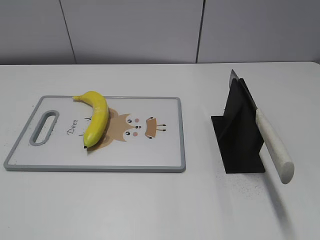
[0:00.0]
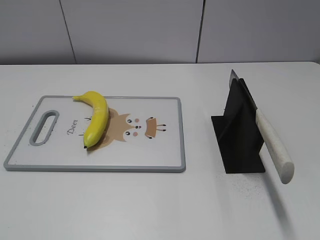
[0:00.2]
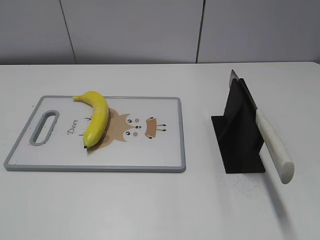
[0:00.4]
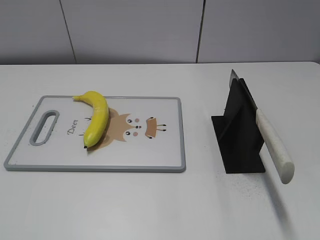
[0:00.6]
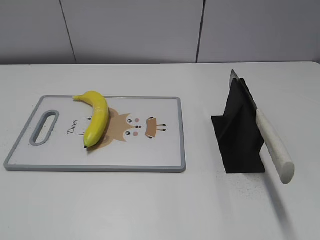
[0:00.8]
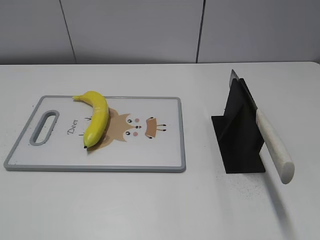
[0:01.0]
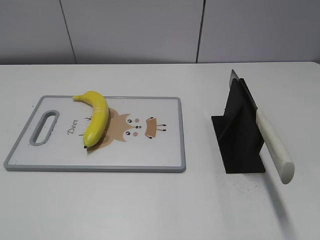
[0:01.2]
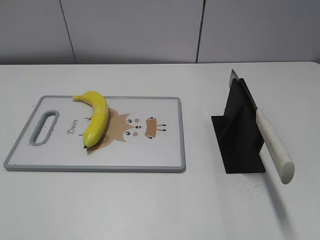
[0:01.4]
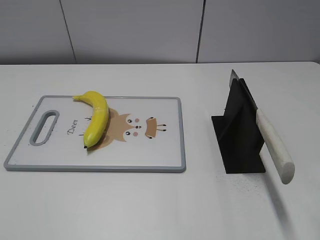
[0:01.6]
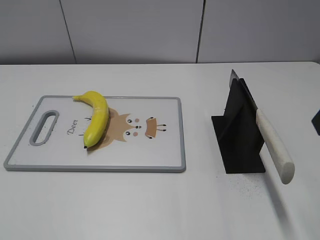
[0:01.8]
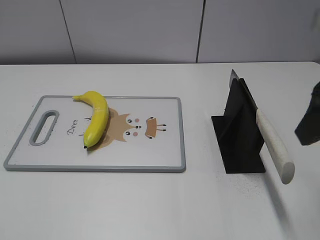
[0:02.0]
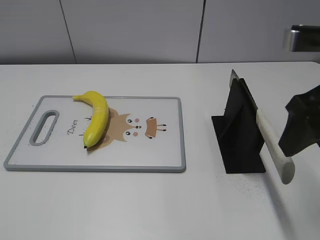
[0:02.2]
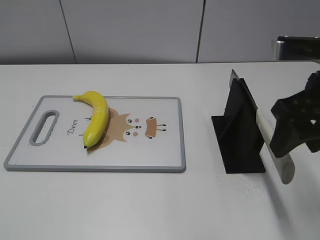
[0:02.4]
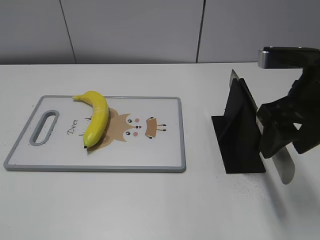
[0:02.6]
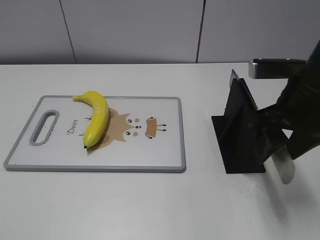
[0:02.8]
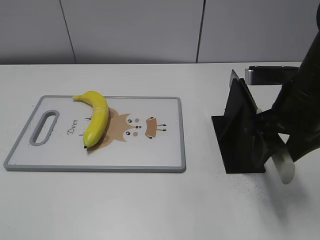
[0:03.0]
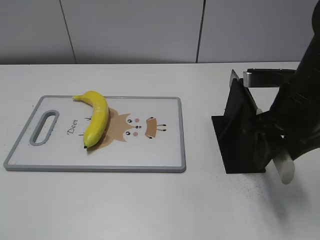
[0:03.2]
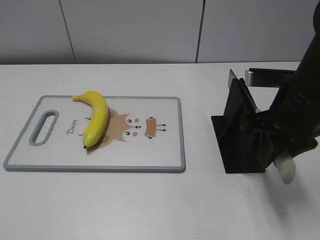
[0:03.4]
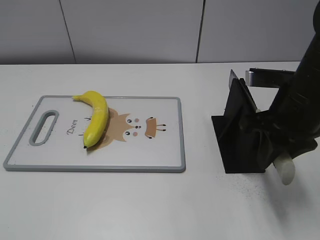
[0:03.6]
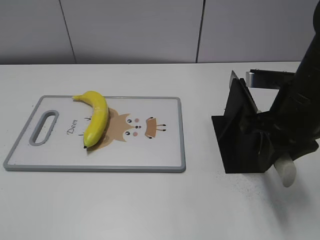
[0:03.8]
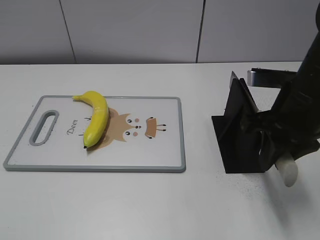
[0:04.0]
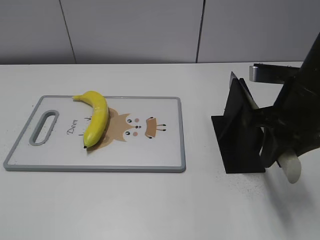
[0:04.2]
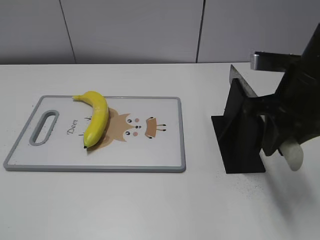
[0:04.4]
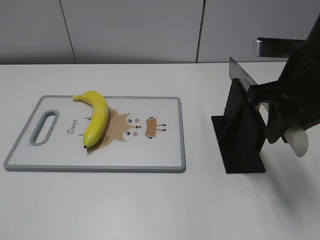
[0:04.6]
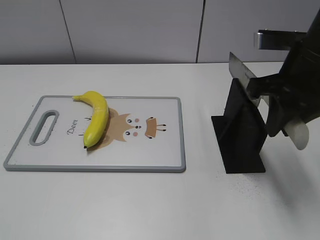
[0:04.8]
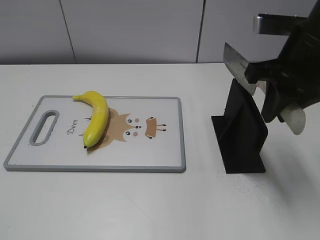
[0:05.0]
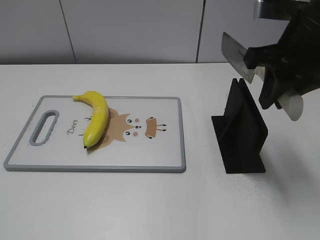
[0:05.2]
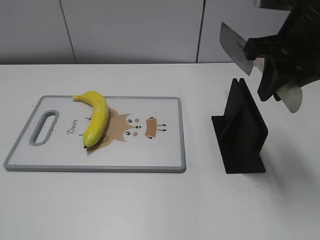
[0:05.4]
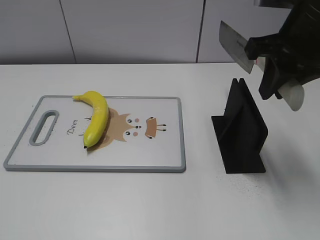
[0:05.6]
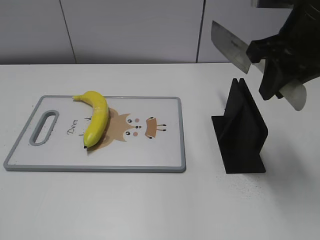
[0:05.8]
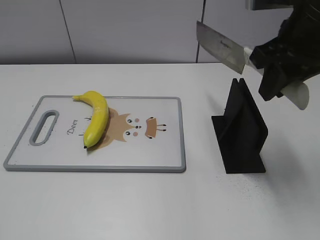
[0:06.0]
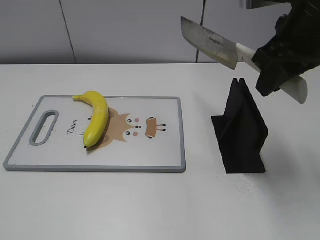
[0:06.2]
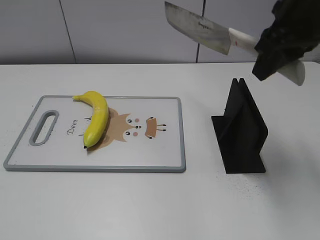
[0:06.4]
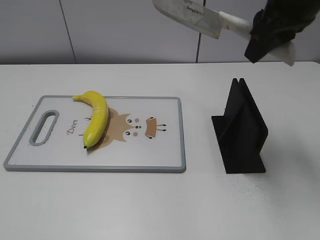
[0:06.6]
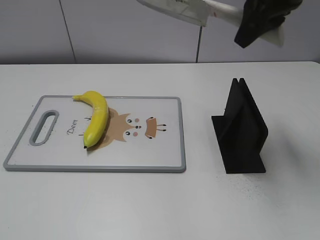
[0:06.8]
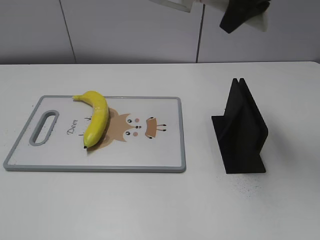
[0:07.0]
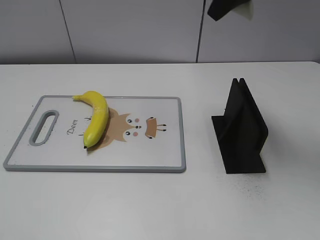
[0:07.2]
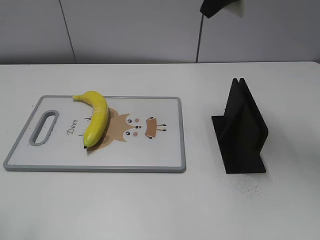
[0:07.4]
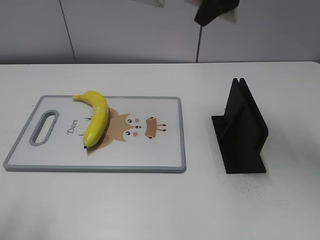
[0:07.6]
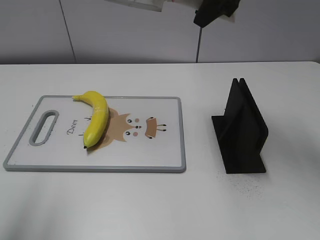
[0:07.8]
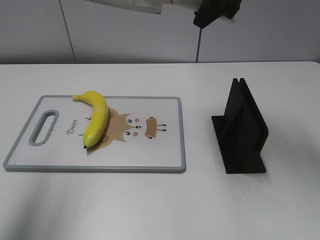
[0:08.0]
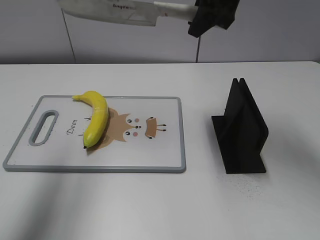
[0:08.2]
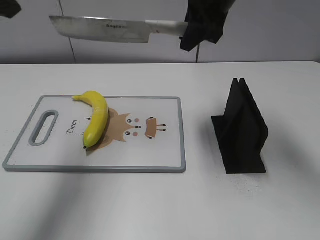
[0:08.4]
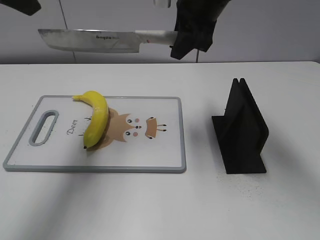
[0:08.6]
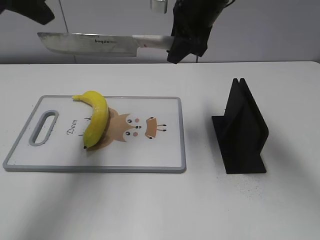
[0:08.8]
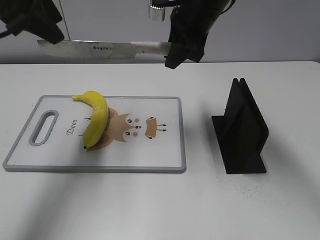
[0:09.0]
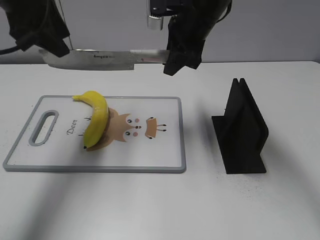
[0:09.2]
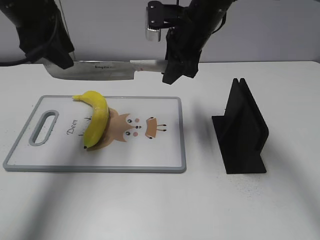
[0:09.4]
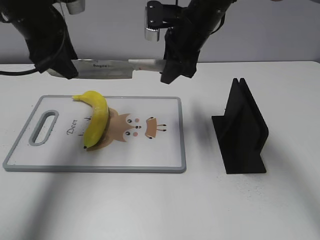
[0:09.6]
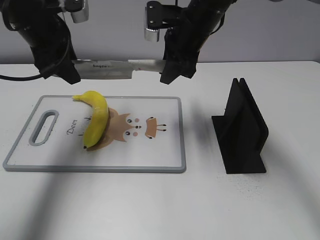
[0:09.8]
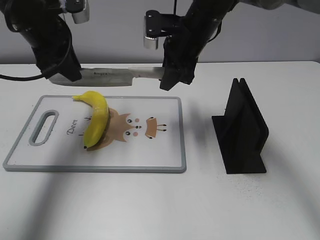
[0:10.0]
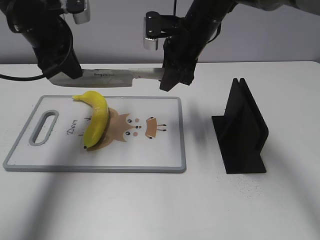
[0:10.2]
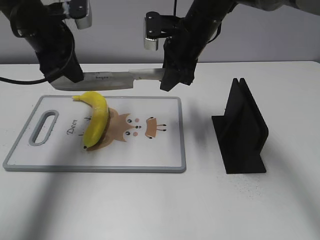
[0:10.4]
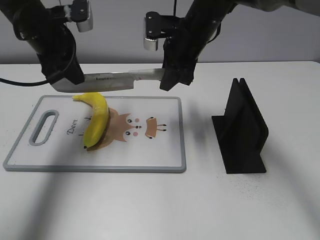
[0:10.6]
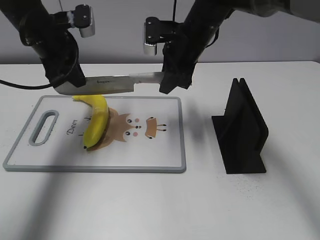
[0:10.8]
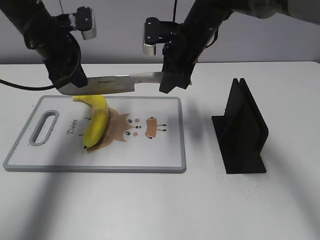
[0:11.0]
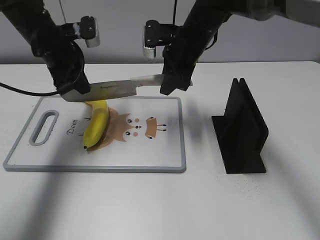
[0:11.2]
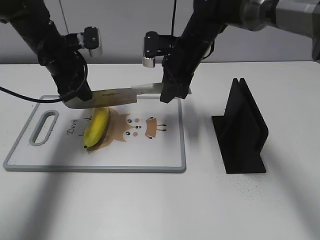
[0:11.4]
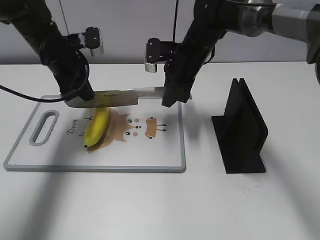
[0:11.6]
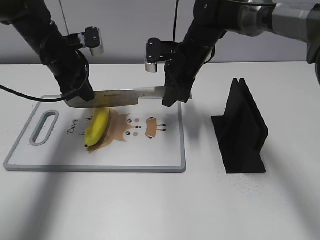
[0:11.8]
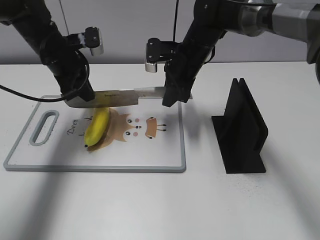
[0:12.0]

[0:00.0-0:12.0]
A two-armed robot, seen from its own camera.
Task of the whole recording: cut plastic banana.
Step, 0:00.0 to 0:05.6: Grab the knife handle with your right hand.
0:01.6 to 0:03.0: The right gripper moves downward, forward and to the left, about 15 cm.
0:03.0 to 0:04.4: The right gripper closes.
0:04.4 to 0:06.0: The right gripper shifts approximately 5 cm upward.
0:06.0 to 0:07.6: The left gripper travels forward and upward by approximately 15 cm, while the right gripper moves forward and to the left, about 10 cm.
0:07.6 to 0:09.0: The left gripper travels forward by approximately 25 cm; the right gripper is displaced downward and to the left by about 10 cm.
0:09.0 to 0:10.4: The right gripper shifts about 5 cm downward. Meanwhile the left gripper travels downward and forward by approximately 10 cm, and closes up.
0:10.4 to 0:12.0: Both grippers travel together downward, about 5 cm.

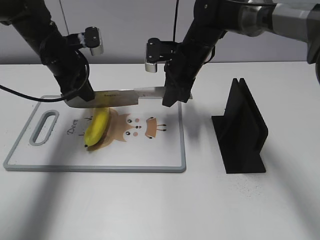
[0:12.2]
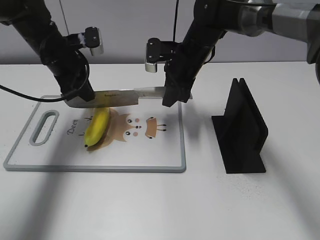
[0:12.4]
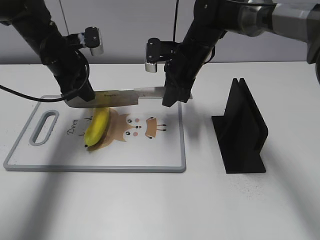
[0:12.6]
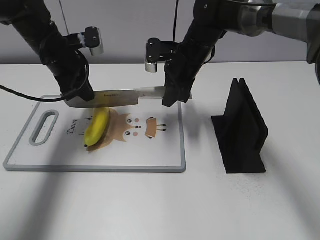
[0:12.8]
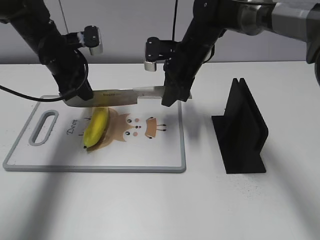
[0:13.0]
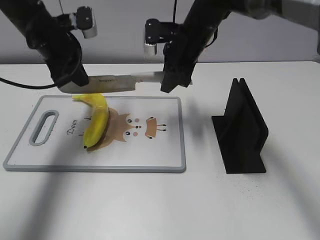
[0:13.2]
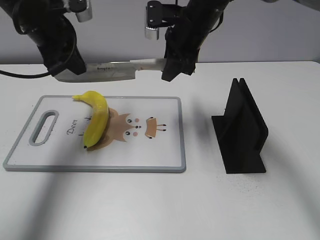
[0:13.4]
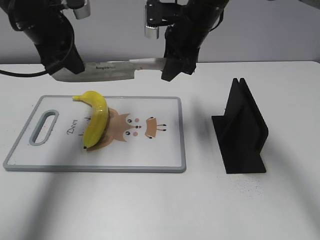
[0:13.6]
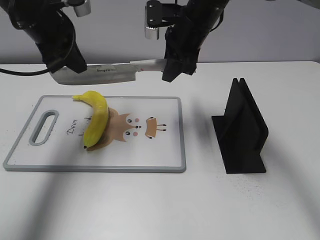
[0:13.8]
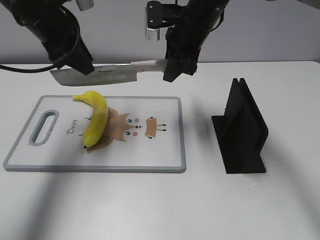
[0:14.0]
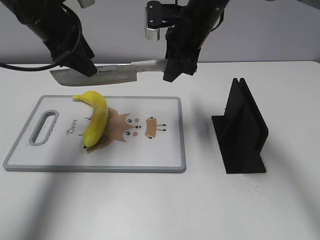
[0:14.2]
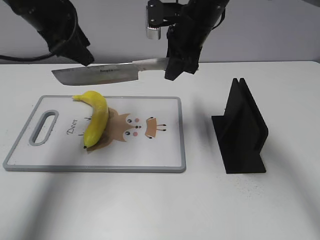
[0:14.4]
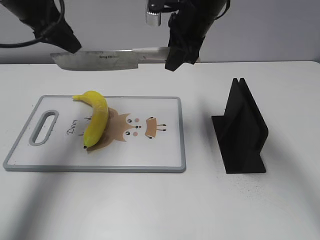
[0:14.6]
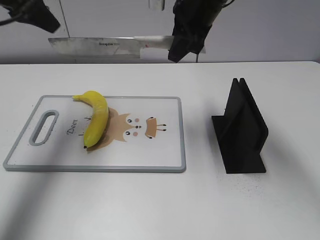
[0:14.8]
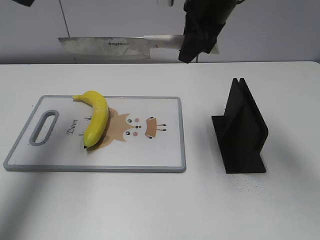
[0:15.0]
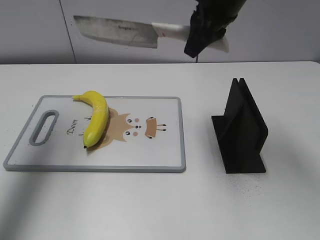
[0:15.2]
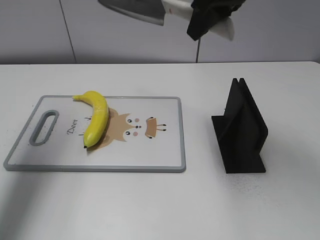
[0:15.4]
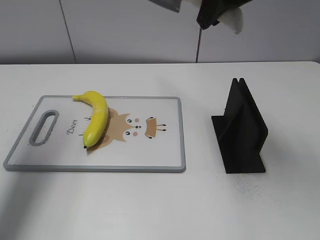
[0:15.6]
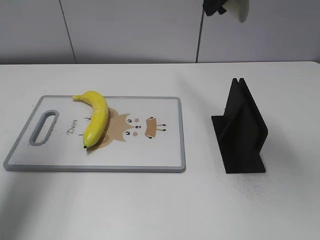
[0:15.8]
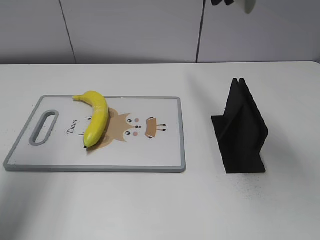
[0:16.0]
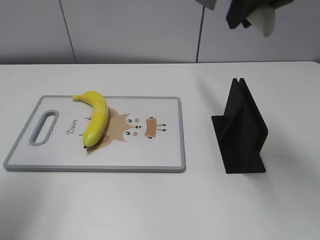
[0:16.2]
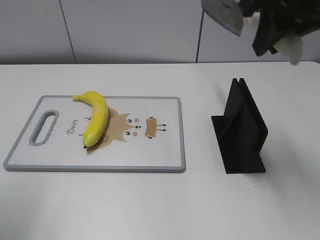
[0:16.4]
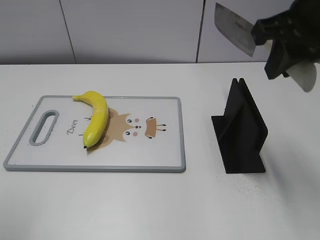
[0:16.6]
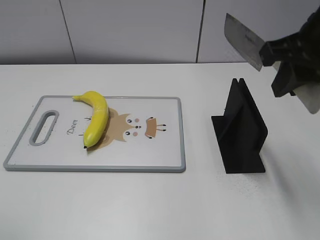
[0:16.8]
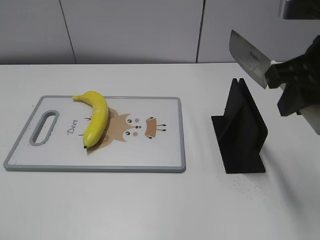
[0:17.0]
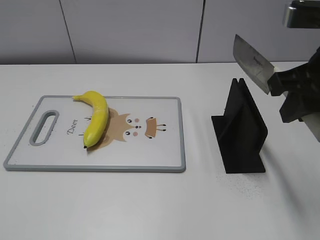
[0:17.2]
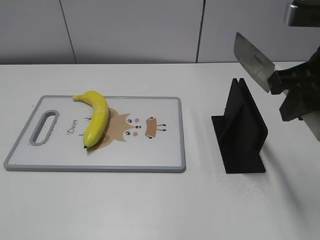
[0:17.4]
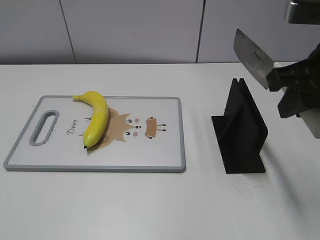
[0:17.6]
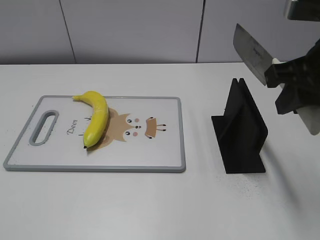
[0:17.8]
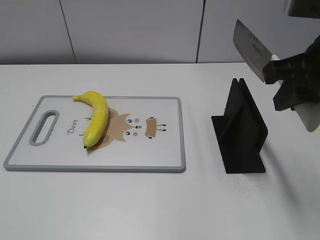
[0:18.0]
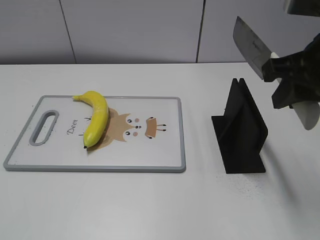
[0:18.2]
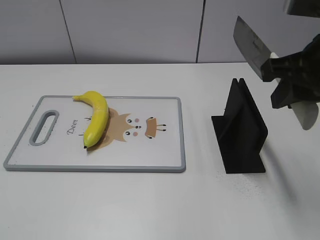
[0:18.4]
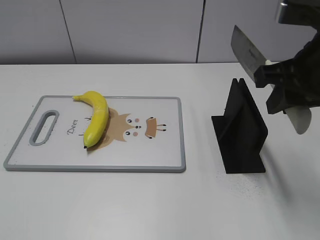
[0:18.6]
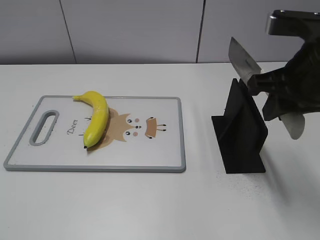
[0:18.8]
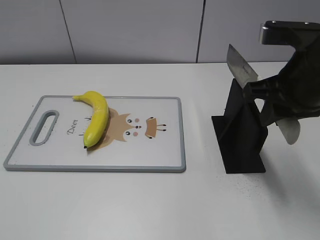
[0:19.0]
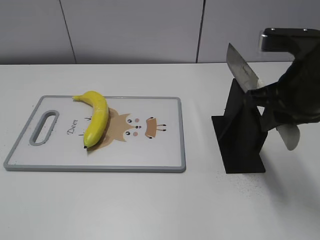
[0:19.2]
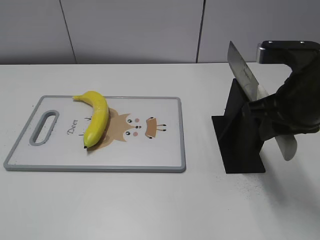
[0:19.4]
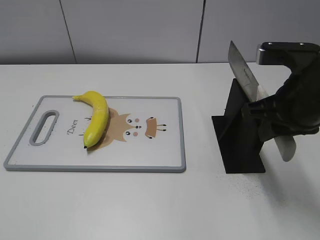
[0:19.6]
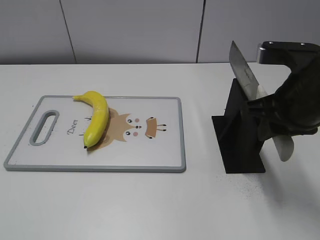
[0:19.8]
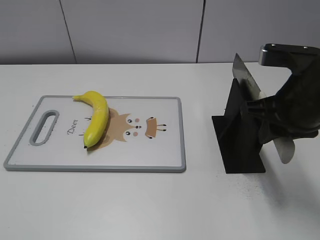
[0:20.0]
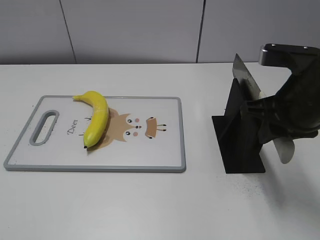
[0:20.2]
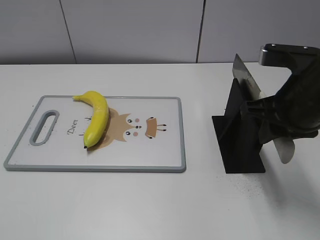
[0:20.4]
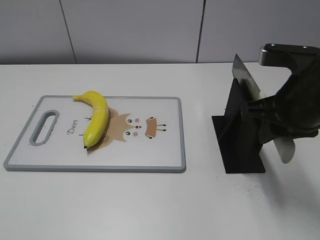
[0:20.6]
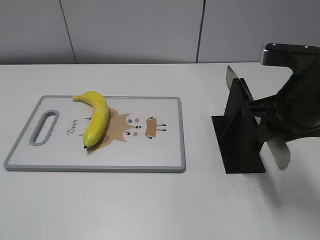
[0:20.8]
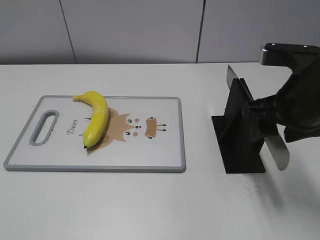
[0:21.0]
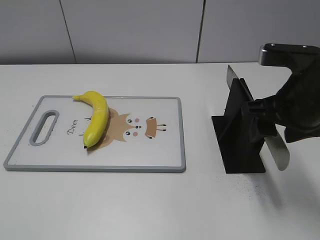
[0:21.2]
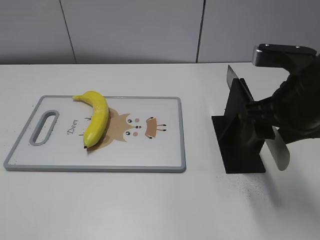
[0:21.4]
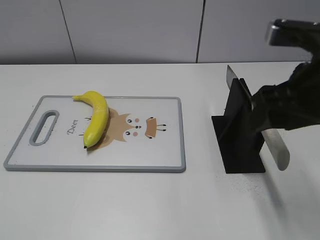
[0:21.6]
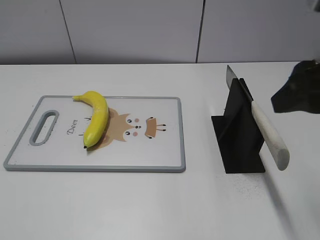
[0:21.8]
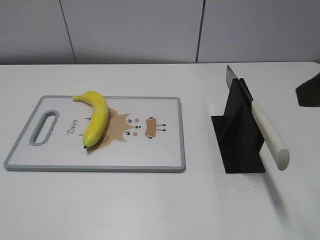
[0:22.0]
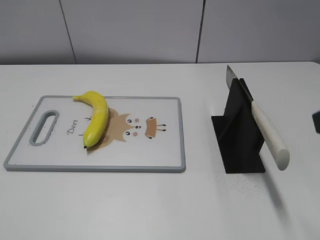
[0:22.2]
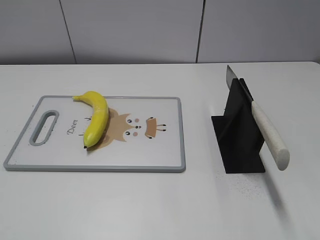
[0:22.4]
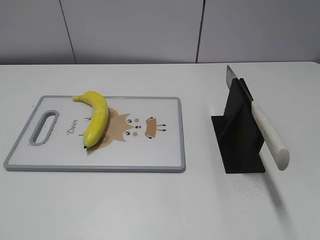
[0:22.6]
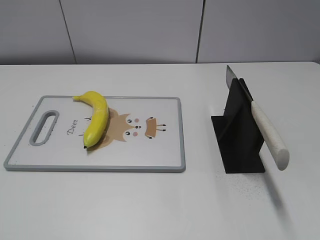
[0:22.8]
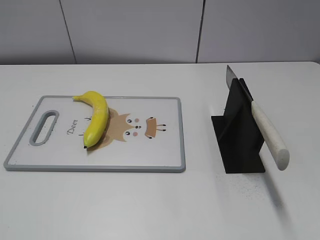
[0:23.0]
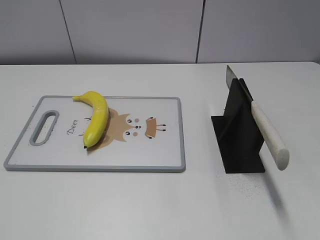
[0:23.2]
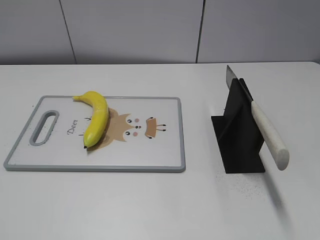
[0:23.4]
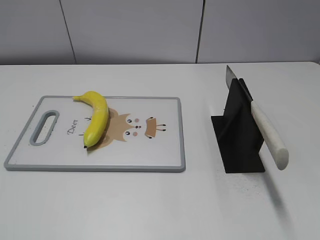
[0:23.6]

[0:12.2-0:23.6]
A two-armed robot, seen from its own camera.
Task of the whole recording: cut plastic banana.
Step, 0:13.4 to 0:16.6: Cut the banana with your right hand.
Step, 0:16.8 to 0:18.2: Secure the blade with your left hand.
0:12.2 to 0:13.6: Both grippers travel together upward, about 10 cm.
0:13.6 to 0:15.0: The right gripper moves upward, some 5 cm. The left gripper is displaced upward and to the left by about 15 cm, and opens.
0:15.0 to 0:16.4: The right gripper goes about 15 cm backward, to the right and upward, while the left gripper heads backward, covering some 20 cm.
0:16.4 to 0:17.8: The left gripper shifts some 20 cm backward. Meanwhile the right gripper moves backward and downward, some 10 cm.
0:17.8 to 0:19.4: The right gripper goes approximately 5 cm downward.
0:19.4 to 0:20.8: There are only small adjustments of the grippers.
0:20.8 to 0:22.2: The right gripper is displaced backward and upward by about 15 cm, and opens up.
